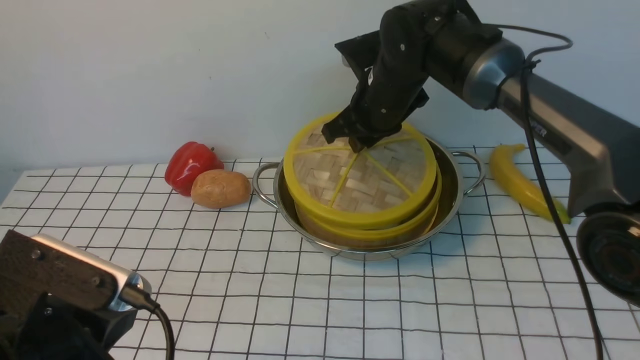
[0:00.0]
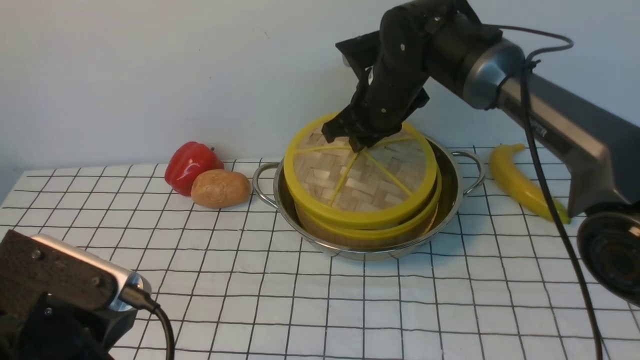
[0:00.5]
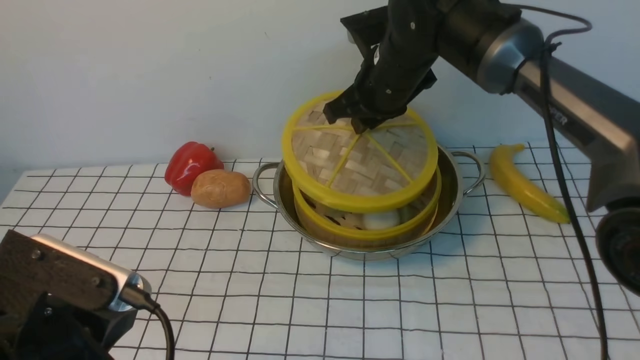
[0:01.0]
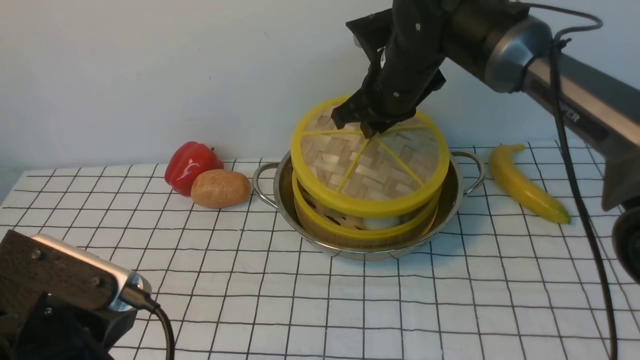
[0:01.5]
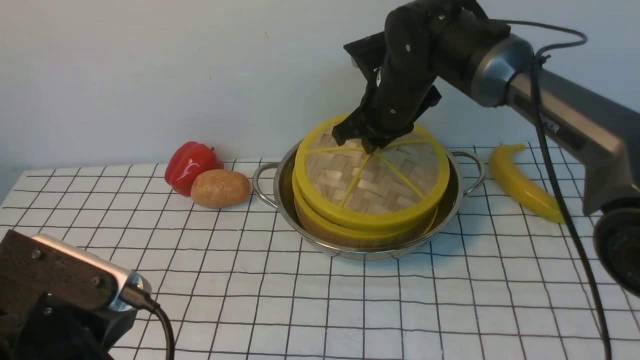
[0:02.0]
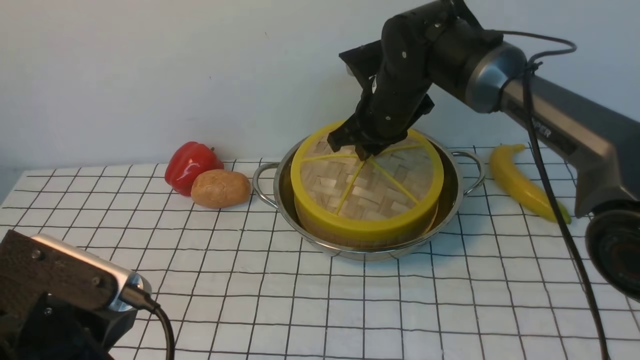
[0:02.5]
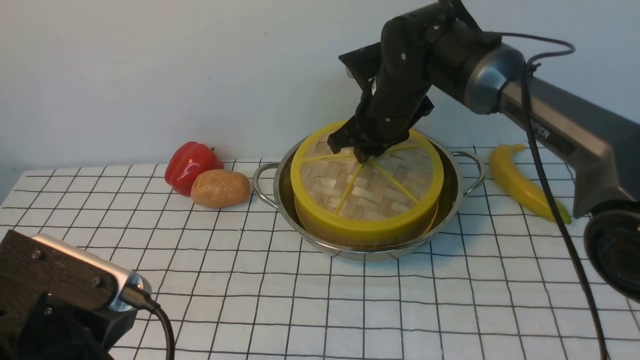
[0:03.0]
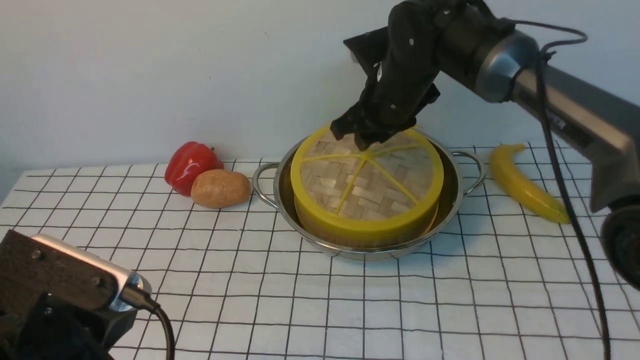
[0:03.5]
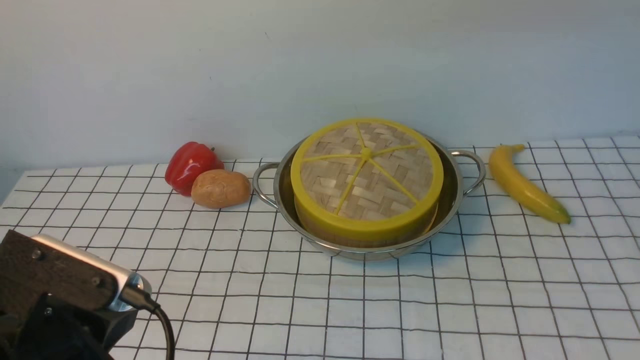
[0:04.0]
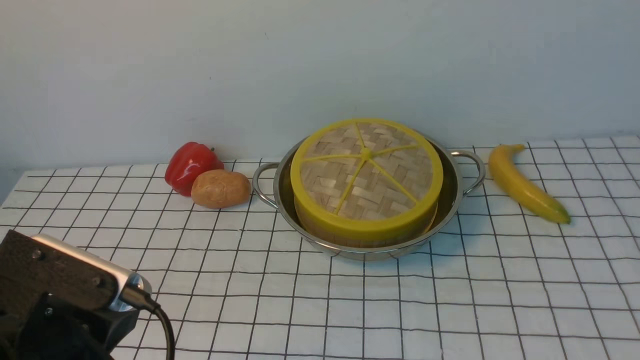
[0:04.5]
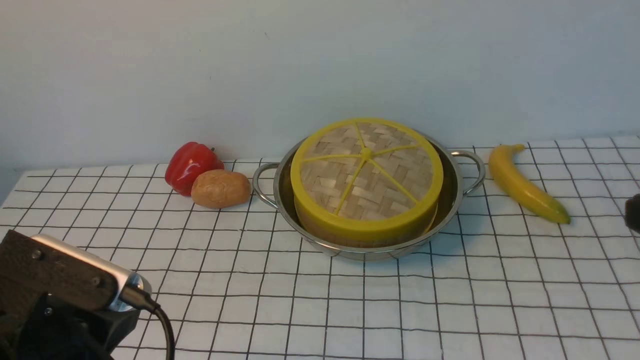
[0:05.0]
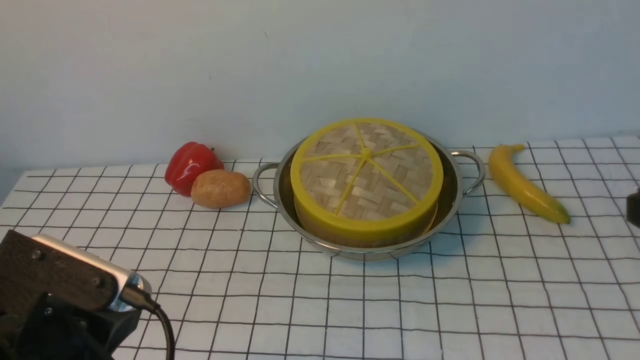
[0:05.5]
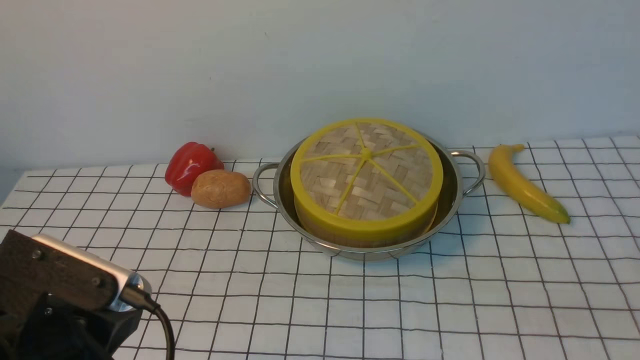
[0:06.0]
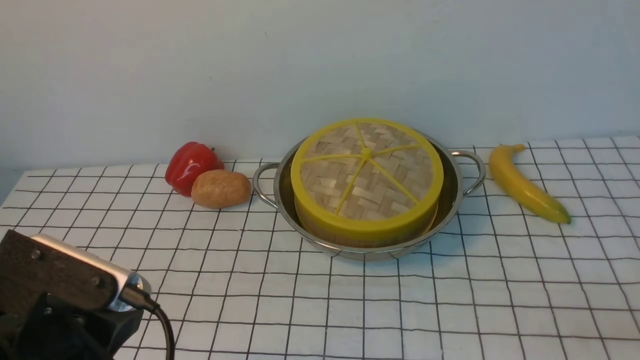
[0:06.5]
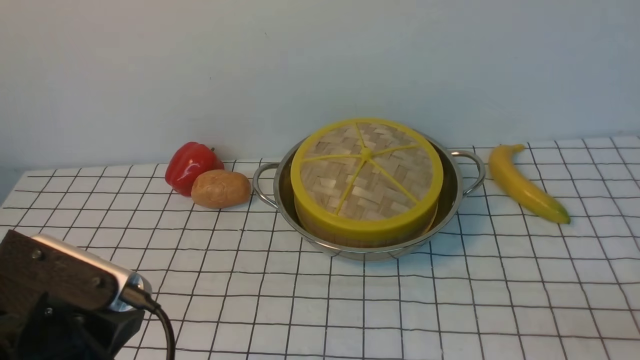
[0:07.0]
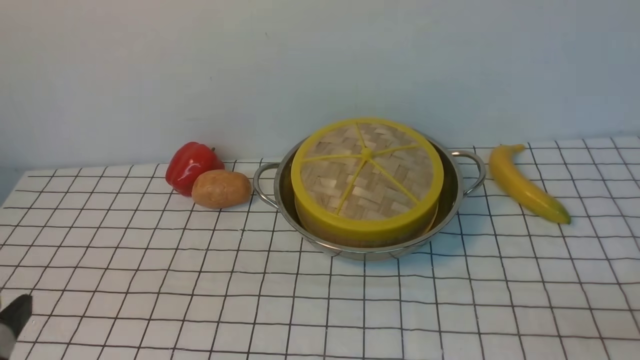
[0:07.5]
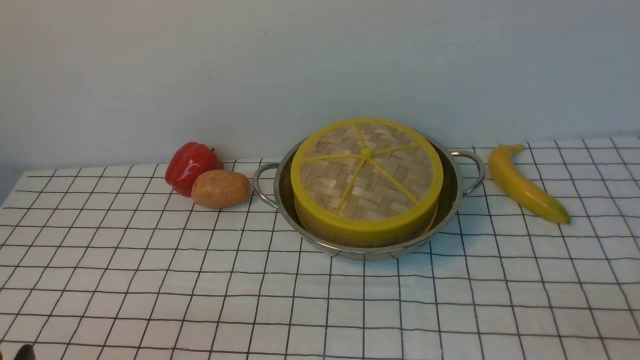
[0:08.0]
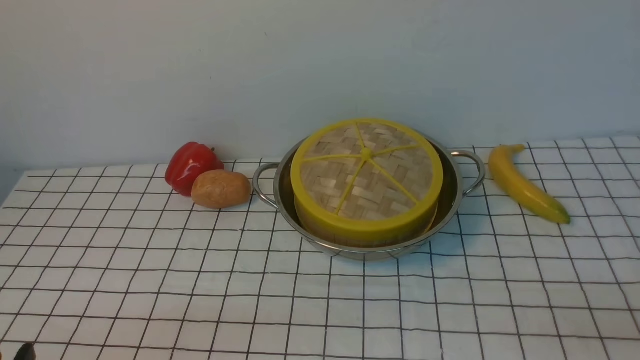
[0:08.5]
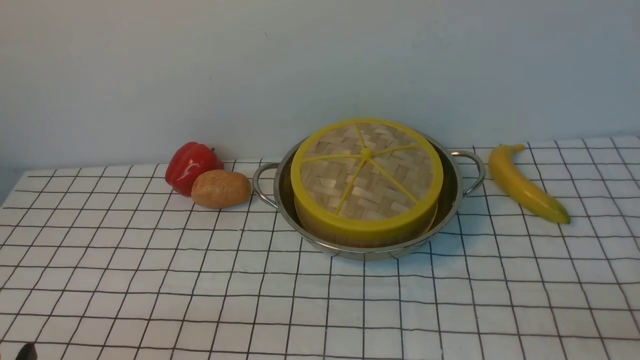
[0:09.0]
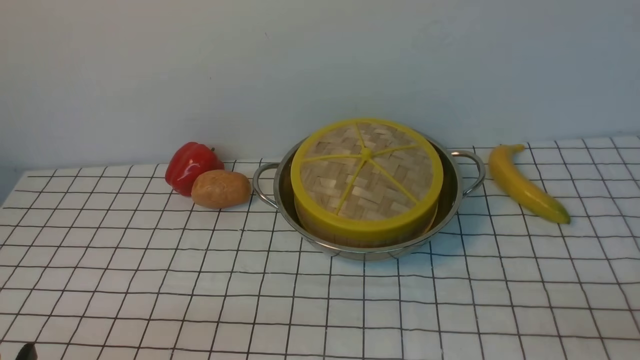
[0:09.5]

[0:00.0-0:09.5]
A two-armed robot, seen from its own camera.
Task of the whole recording: place the steamer in the pot on the white tablecloth, and put the lid on the steamer.
Step, 0:00.0 to 0:03.5: use the right arm to place the steamer lid on the steamer.
0:00.0 to 0:02.0: There are only small adjustments of the grippers.
0:02.0 to 0:04.0: The right gripper is displaced upward and backward by roughly 30 cm, and opens, then closes once more.
0:05.5 to 0:07.5: The left gripper goes roughly 5 cm backward.
0:07.5 to 0:09.5: The left gripper is displaced downward by roughly 10 cm.
